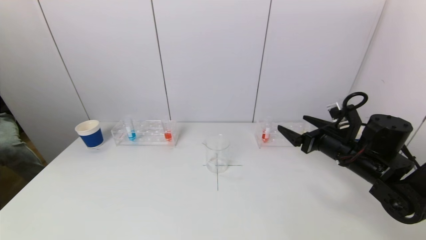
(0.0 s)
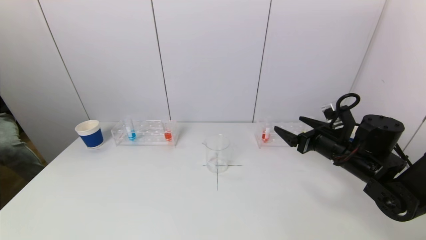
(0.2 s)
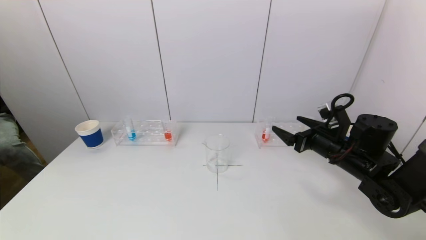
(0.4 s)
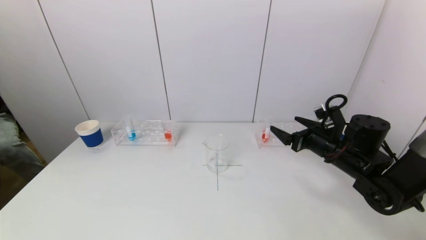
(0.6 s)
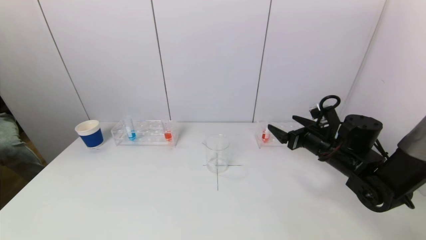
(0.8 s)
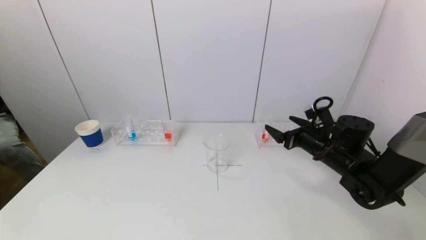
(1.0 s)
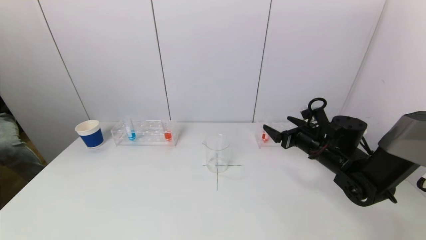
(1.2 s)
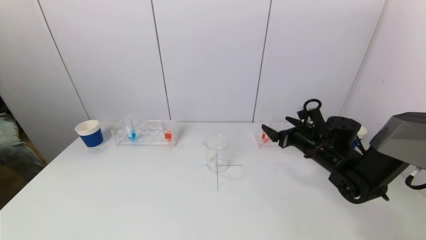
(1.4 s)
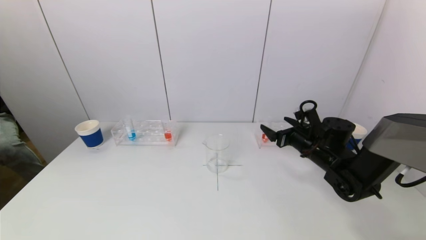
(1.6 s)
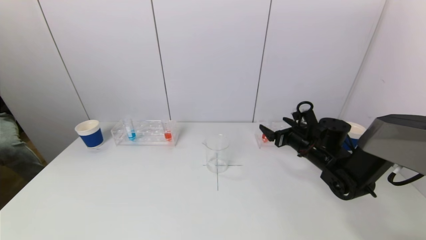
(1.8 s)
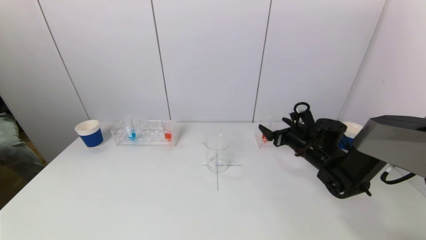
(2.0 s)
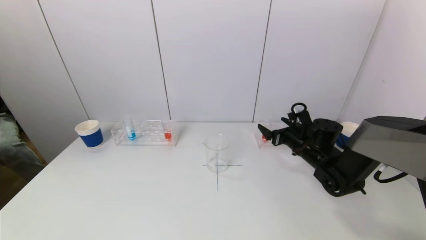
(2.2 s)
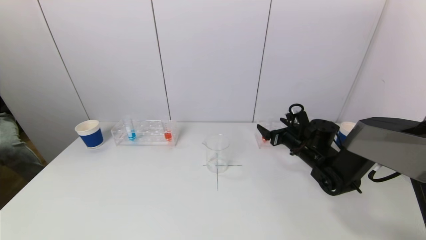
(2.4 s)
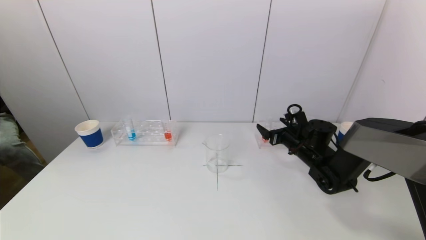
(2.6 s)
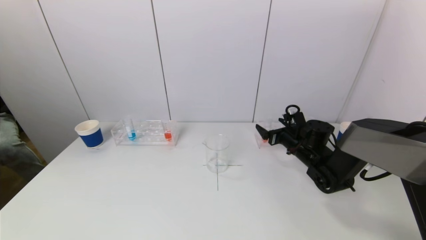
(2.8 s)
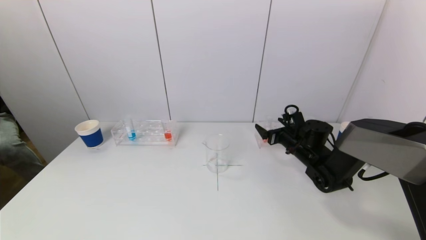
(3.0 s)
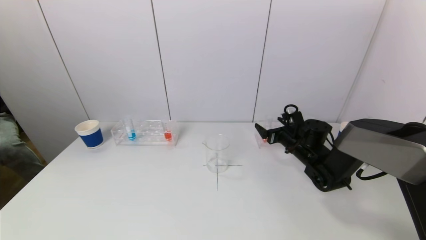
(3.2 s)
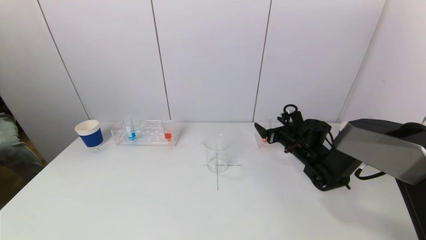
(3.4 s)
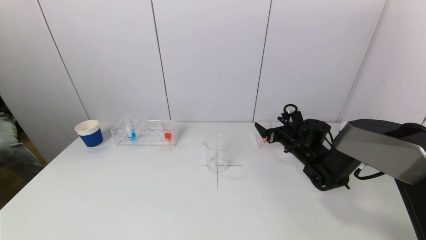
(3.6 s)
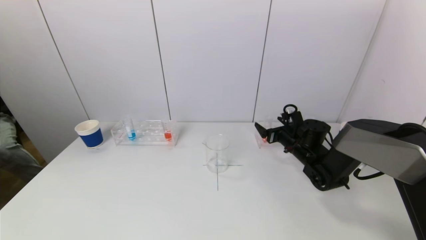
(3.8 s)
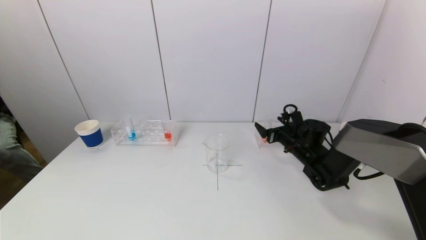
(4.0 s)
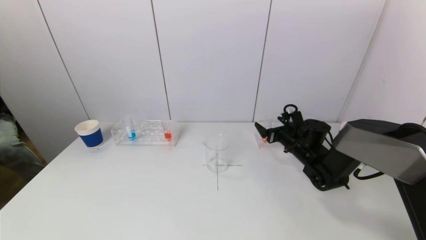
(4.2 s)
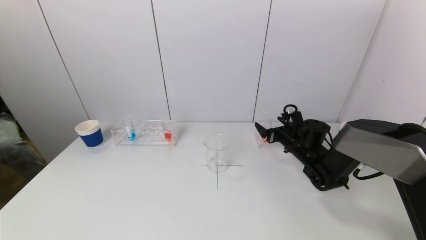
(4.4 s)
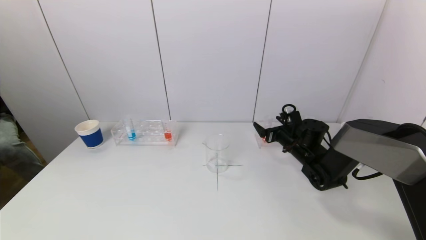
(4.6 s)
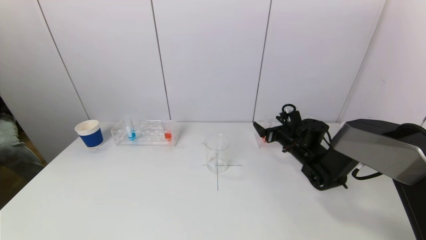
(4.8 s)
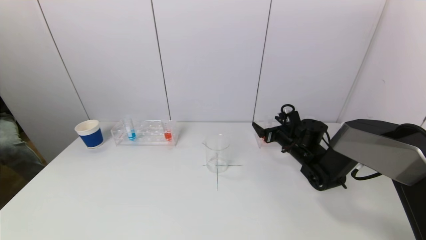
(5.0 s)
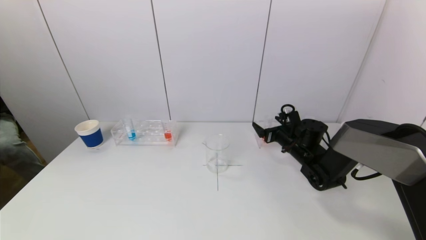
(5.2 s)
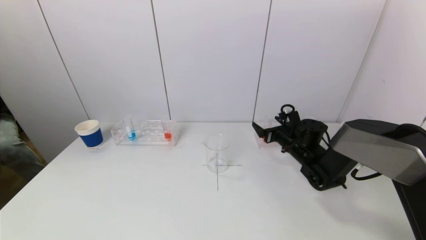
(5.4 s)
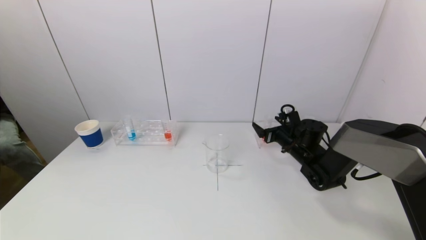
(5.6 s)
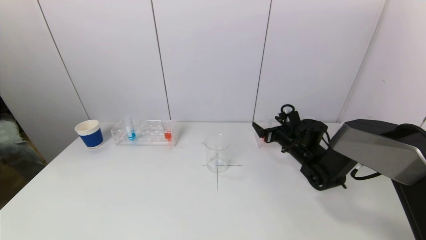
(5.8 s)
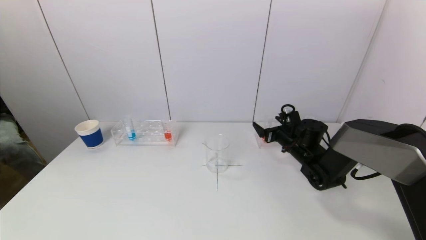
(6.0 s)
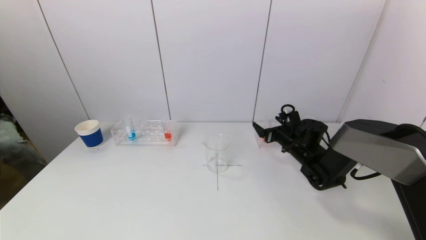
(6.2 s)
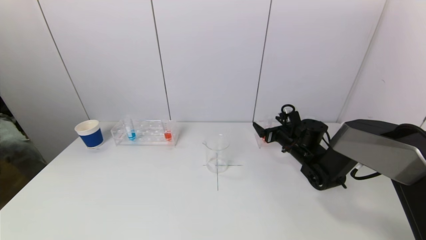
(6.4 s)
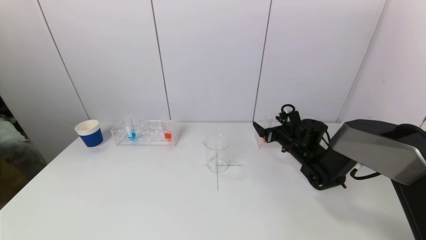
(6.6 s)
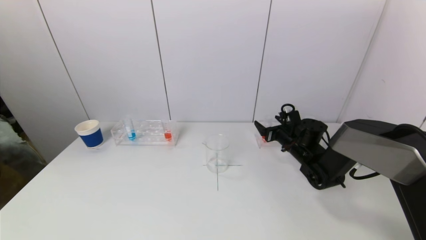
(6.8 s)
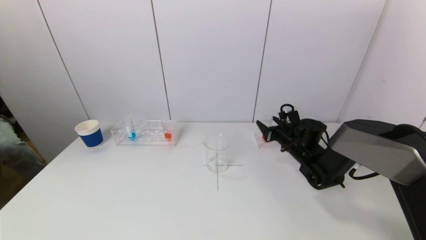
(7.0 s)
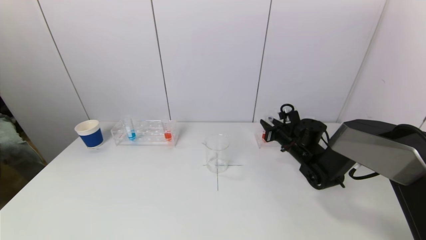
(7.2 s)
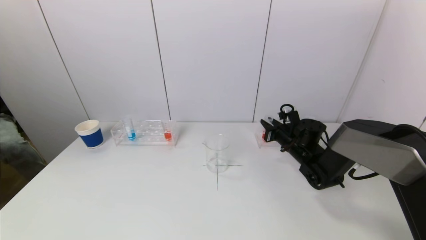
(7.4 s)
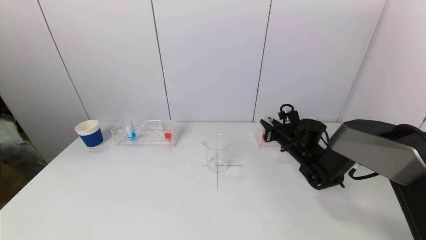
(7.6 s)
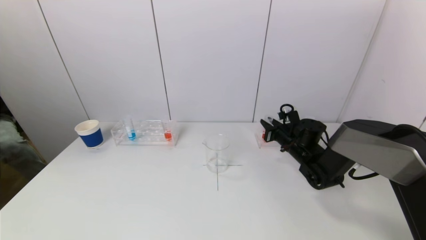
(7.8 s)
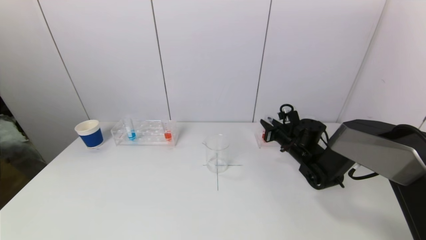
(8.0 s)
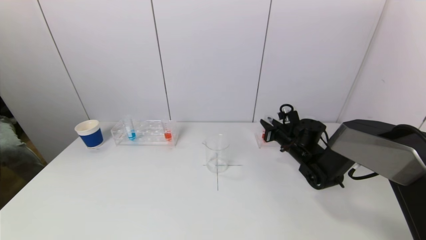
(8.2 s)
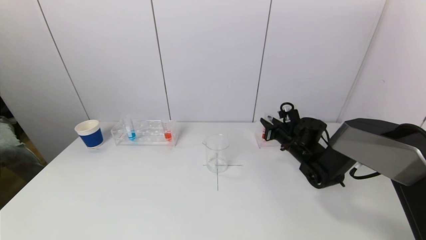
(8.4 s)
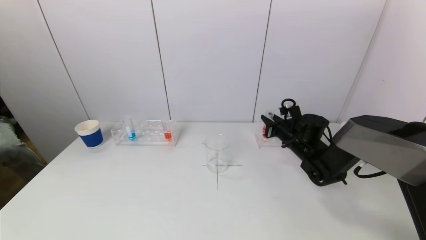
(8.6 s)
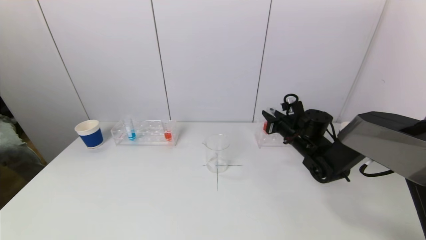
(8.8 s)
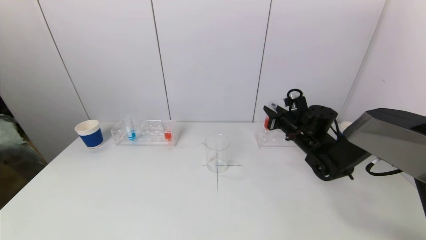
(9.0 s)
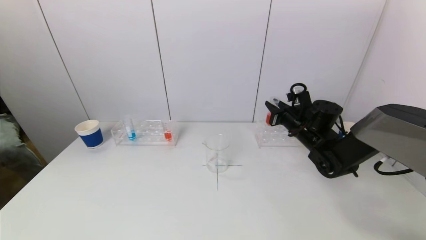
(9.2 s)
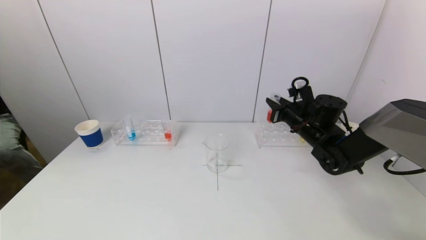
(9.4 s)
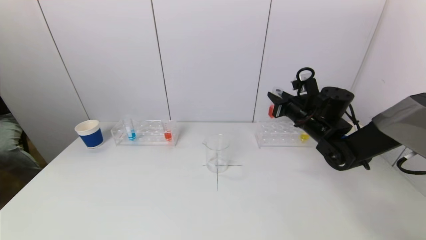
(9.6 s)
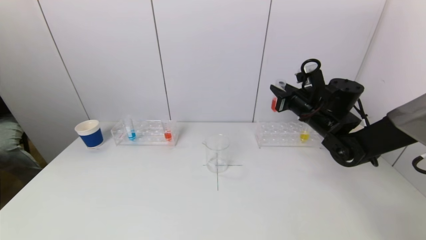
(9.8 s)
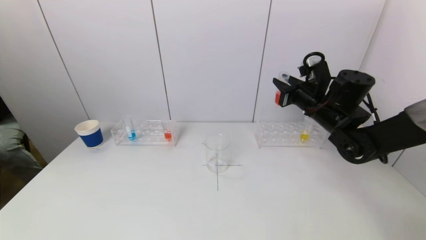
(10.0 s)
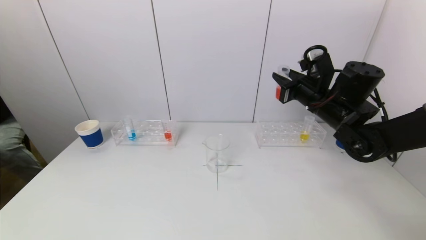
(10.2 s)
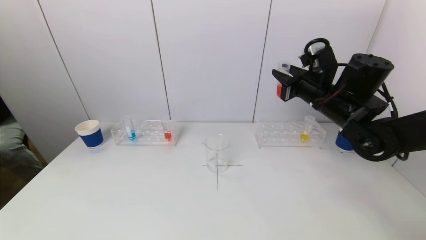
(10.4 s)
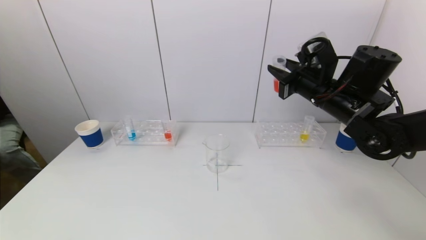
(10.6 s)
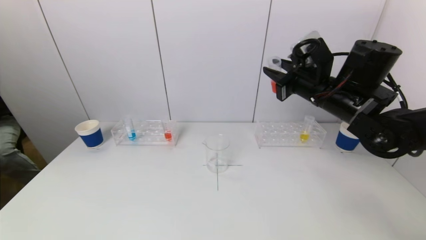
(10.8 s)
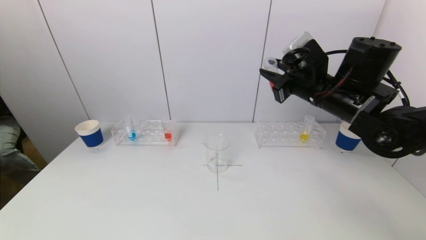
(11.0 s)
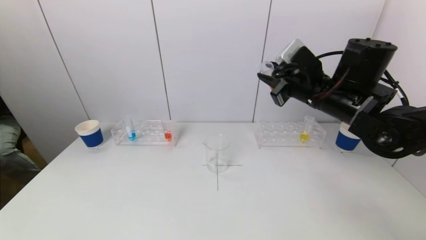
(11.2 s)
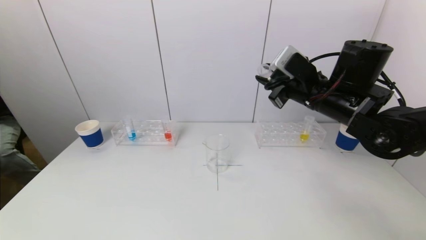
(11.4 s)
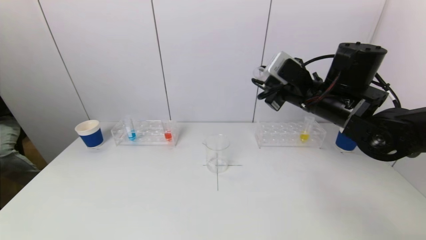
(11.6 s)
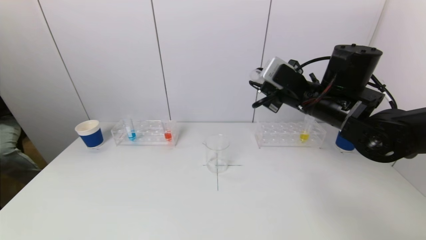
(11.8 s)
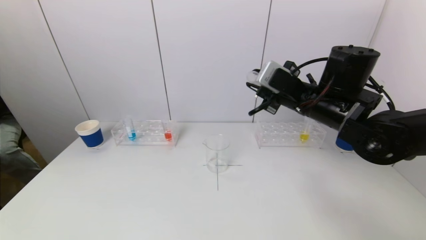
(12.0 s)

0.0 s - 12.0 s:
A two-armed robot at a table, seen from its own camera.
Task of the whole recording: pick up a test tube with pigment on left test tube rack and a test tube with pigment on right test tube rack by grippers and pour them into the beaker.
Step, 0.0 s - 7.2 s: Grasp the red reagent with the right gripper.
0.0 s - 1.6 s: The right gripper is displaced forward by approximately 5 cm.
1.6 s - 3.0 s: The right gripper shifts by approximately 5 cm.
3.0 s - 6.0 s: The two grippers keep their place.
6.0 s - 7.6 s: The right gripper closes up.
7.6 s - 9.0 s: The right gripper shifts roughly 5 cm upward.
9.0 s - 10.4 s: The right gripper is displaced upward and backward by about 15 cm.
10.4 s - 12.0 s: The right gripper ends up some 5 cm from where it was.

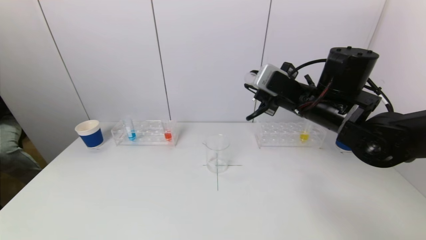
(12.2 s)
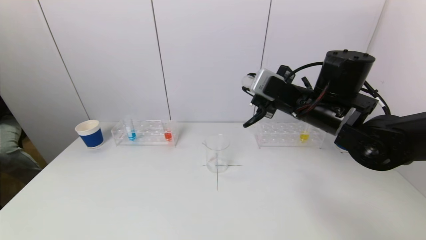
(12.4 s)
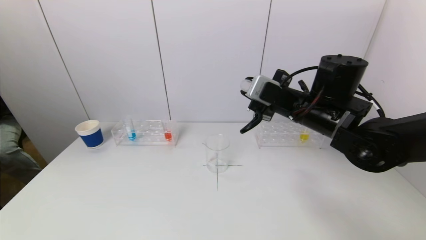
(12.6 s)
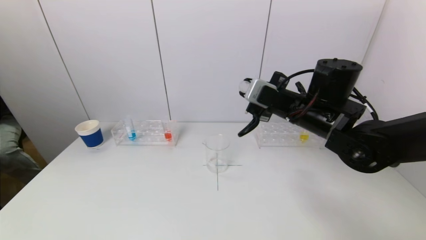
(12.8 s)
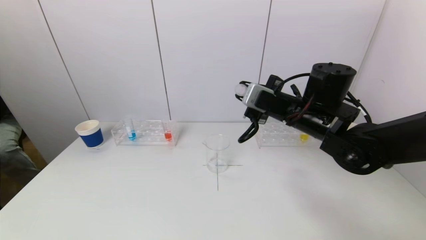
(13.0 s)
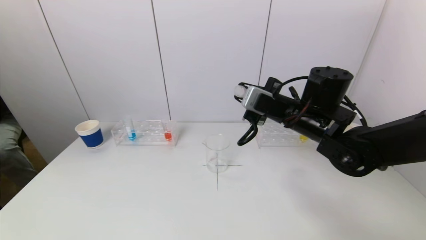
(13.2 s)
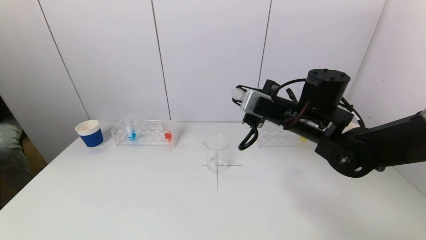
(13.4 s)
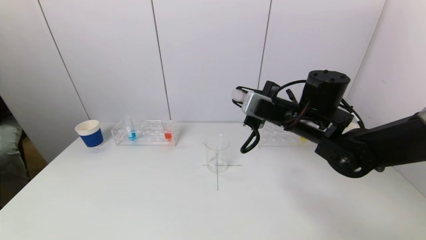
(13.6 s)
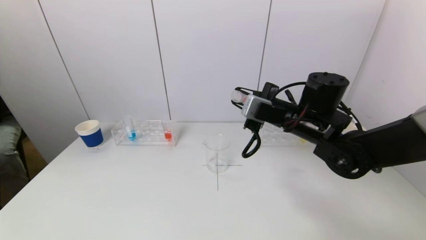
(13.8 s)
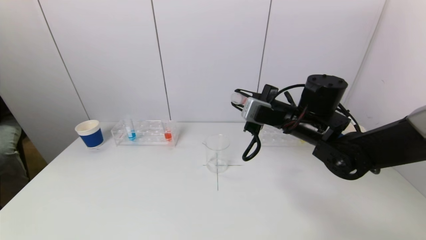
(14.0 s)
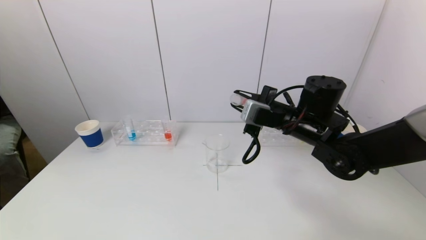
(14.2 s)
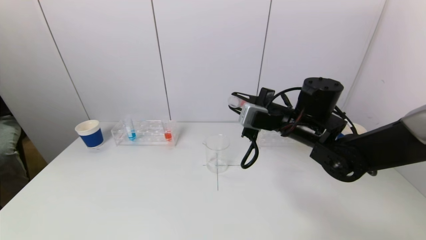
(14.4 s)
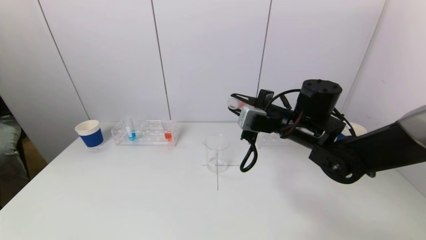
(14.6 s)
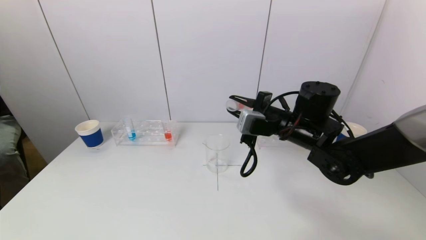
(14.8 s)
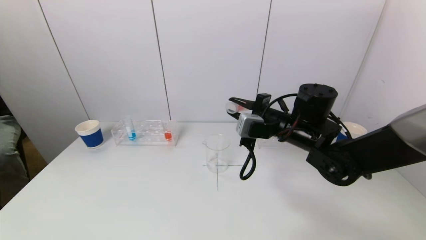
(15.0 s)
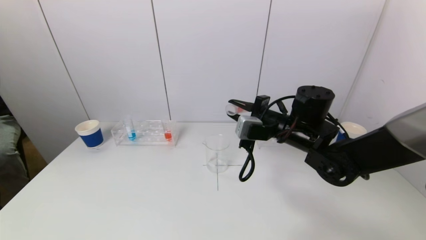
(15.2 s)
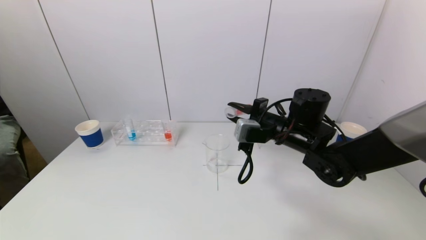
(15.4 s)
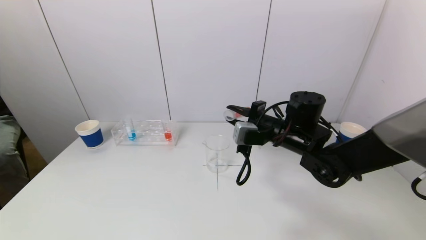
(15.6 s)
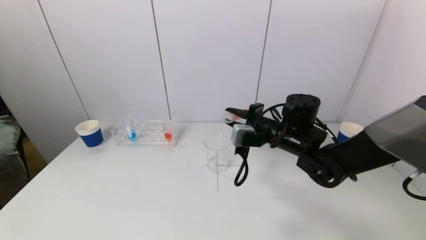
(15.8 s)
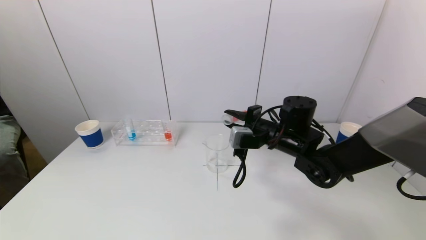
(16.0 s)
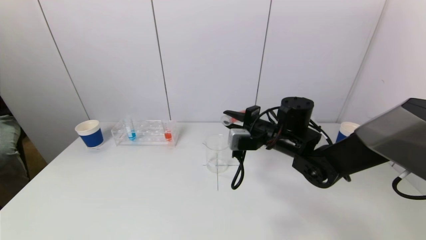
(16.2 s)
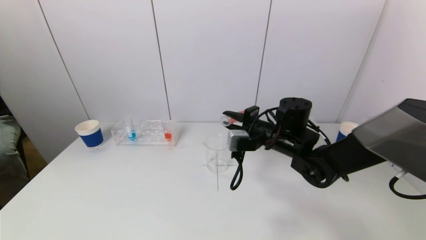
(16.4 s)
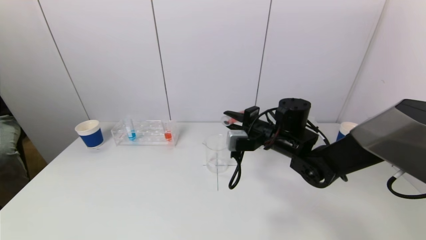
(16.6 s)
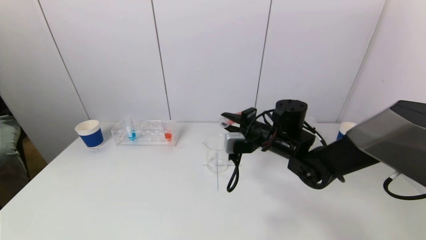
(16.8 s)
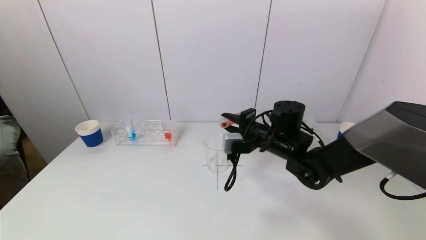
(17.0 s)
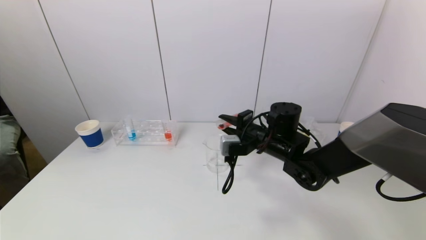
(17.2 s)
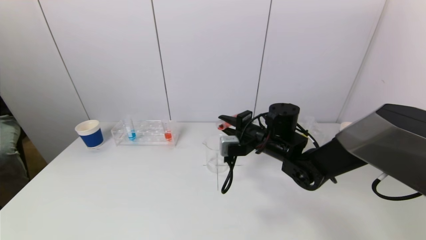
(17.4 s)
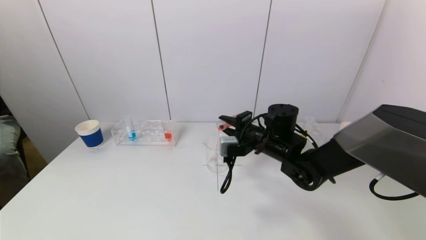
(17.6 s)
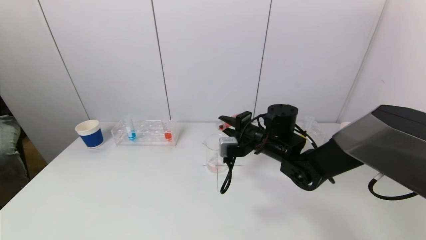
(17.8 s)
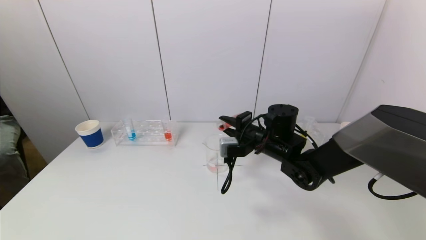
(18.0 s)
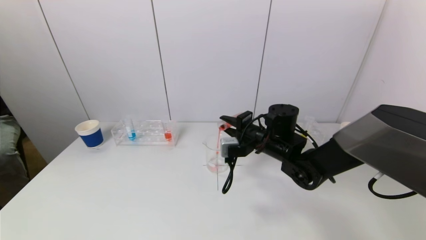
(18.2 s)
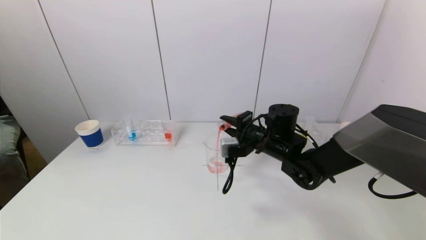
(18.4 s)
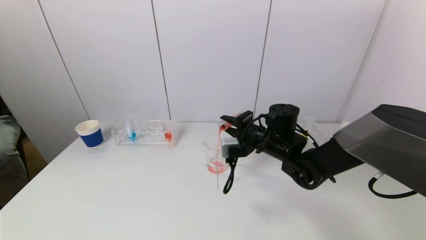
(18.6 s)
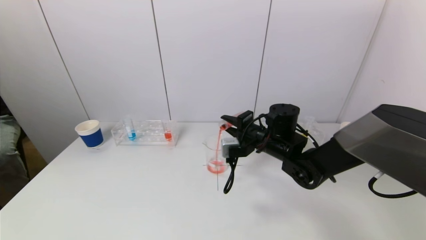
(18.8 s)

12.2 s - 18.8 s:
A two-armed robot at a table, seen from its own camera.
Task of the whole recording: pick up a test tube with pigment on left test tube rack and a test tube with pigment on right test tube rack by grippers and pour them into the beaker.
12.2 s - 13.8 s: There are only small adjustments of the grippers.
13.8 s - 15.4 s: The grippers stay close to where they were, moving slightly.
15.4 s - 18.8 s: The grippers stay close to where they were, moving slightly.
